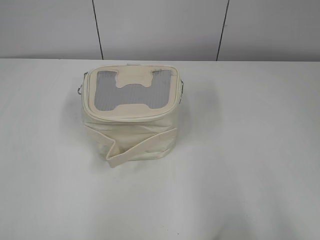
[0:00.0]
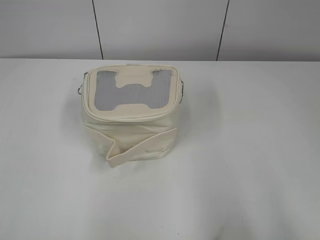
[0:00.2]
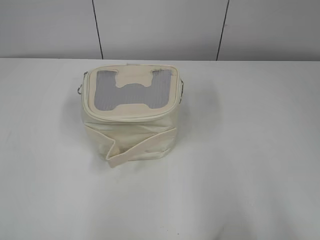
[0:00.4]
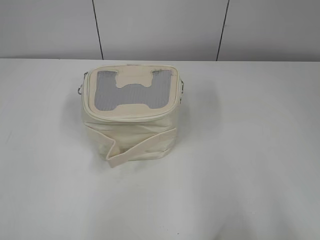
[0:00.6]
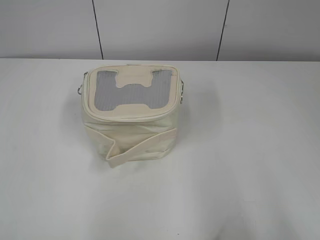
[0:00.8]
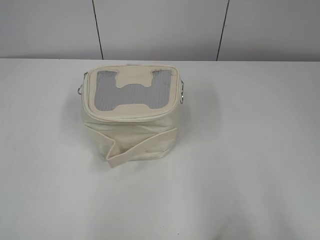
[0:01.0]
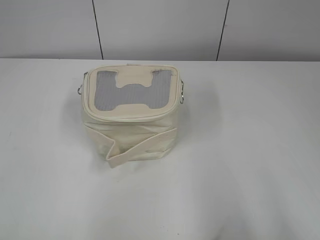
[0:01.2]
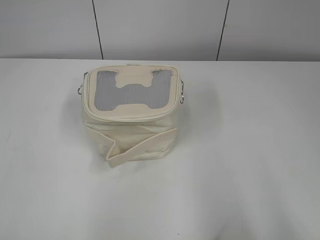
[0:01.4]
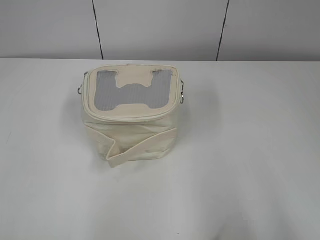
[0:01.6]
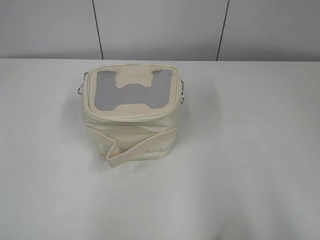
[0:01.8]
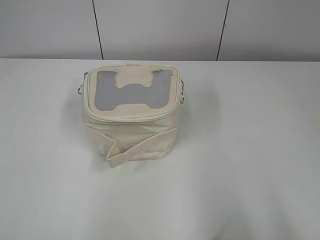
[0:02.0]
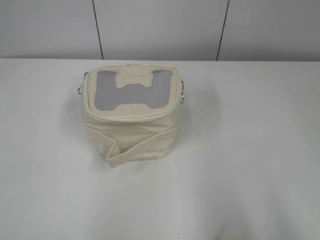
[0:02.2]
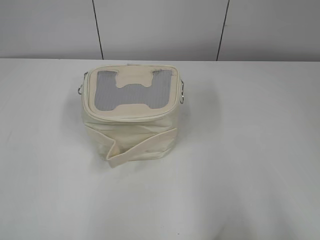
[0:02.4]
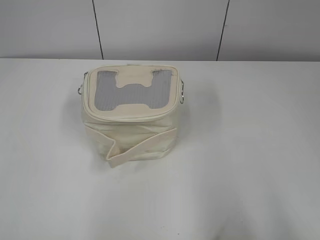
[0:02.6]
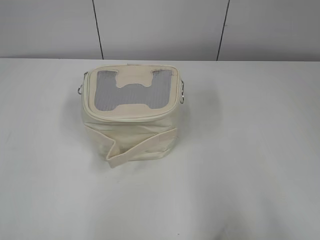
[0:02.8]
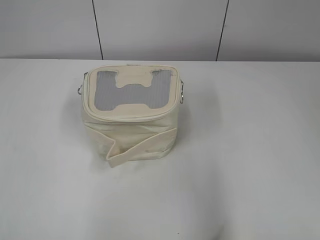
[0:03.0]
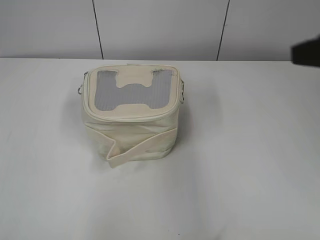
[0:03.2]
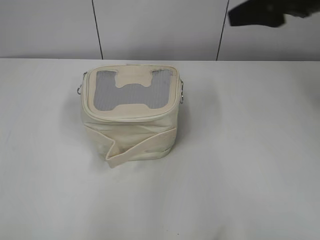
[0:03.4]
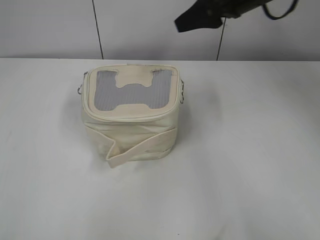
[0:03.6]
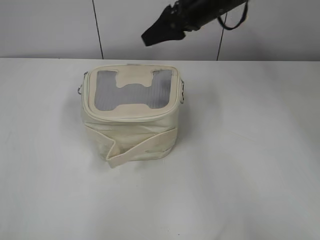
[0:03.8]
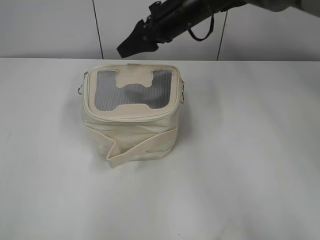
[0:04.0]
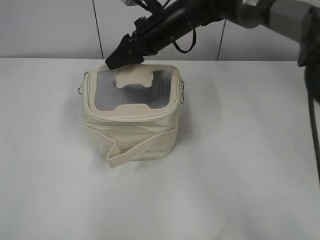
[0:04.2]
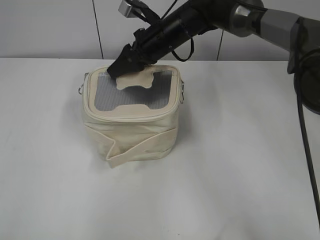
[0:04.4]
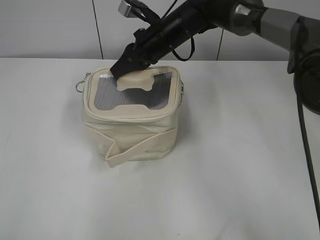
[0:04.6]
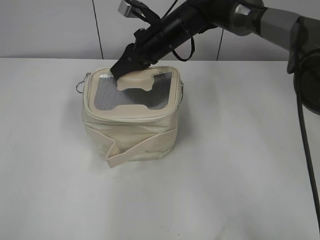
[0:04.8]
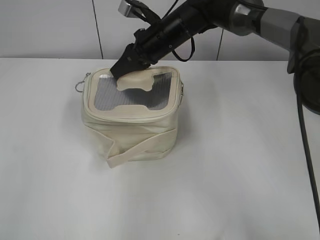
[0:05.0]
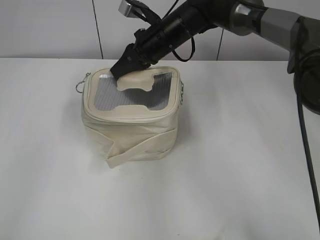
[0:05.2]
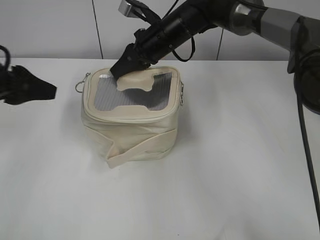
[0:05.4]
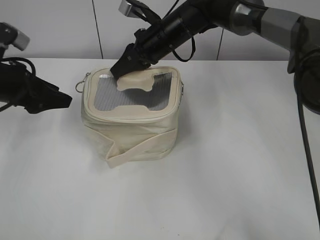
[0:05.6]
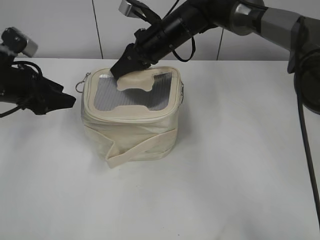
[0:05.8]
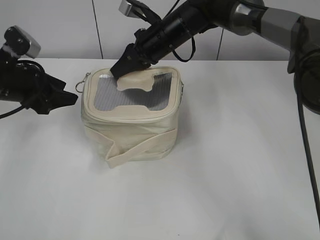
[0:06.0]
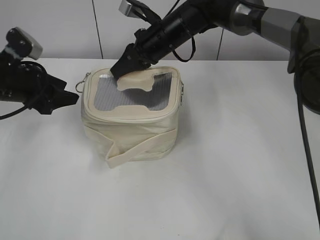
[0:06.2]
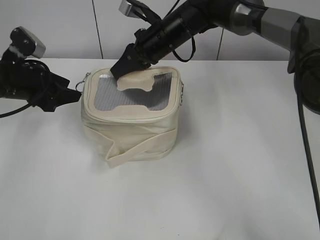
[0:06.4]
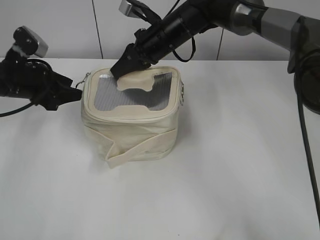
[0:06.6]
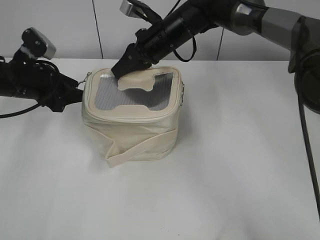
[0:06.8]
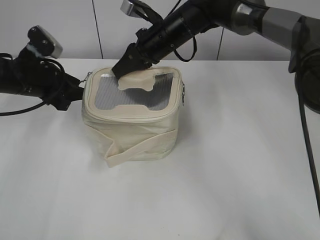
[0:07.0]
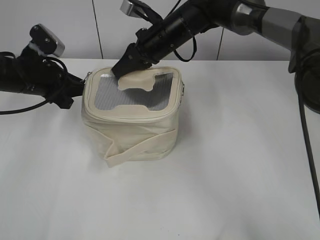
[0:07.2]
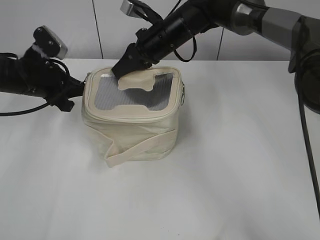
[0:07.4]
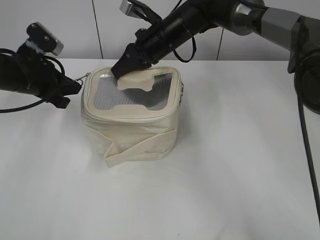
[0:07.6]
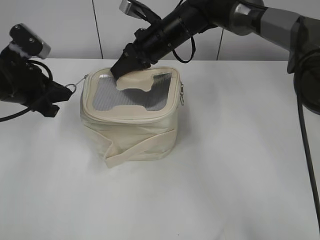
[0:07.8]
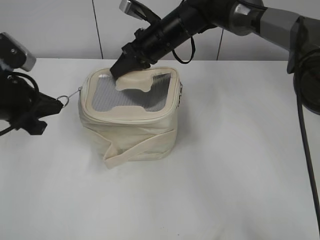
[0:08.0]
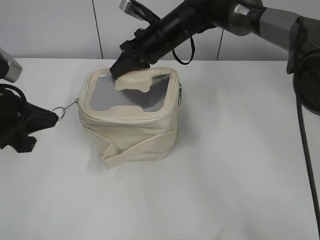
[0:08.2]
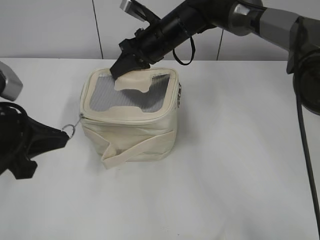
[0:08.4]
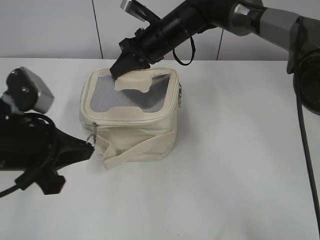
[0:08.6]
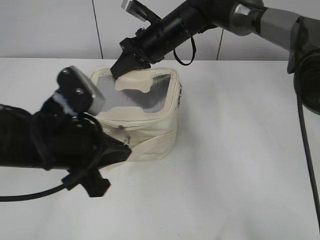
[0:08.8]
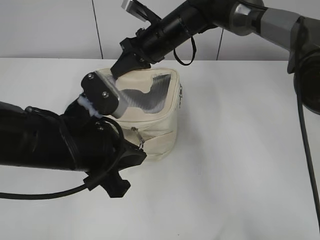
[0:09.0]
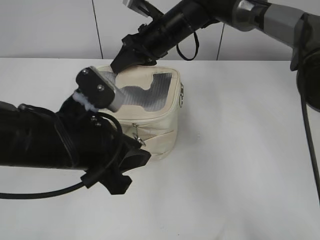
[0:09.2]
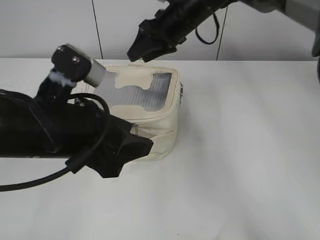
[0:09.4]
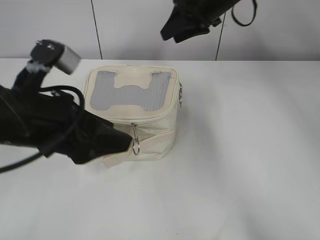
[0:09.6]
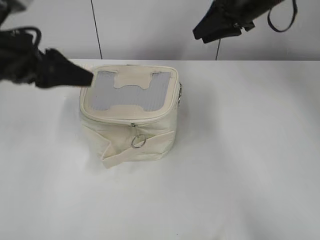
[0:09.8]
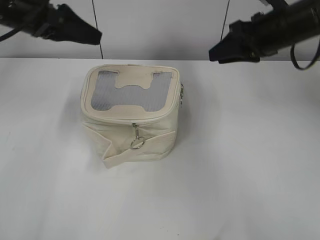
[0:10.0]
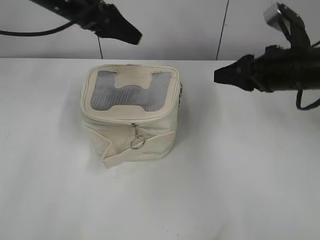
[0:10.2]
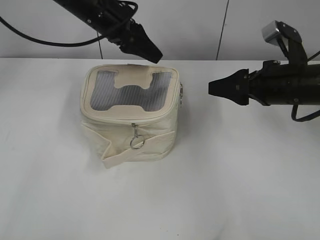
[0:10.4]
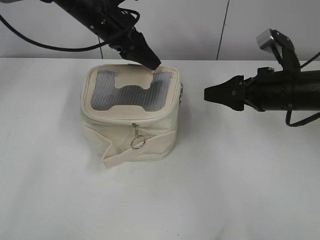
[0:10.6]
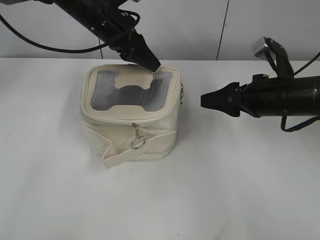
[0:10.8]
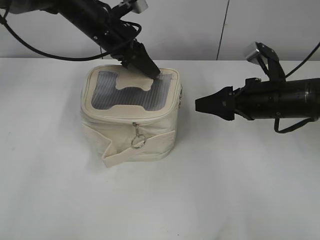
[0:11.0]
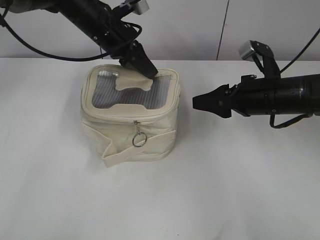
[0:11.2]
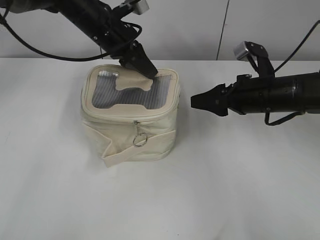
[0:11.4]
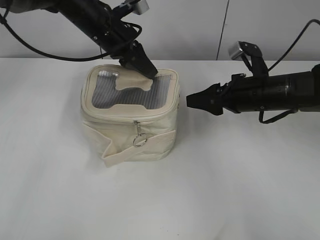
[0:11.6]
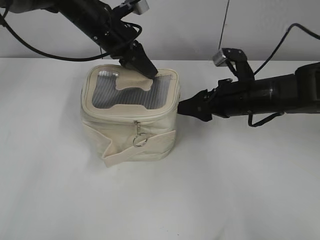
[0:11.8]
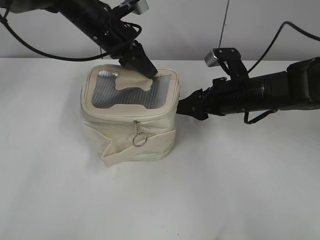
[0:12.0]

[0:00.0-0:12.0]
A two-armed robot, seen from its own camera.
Step, 0:00.0 to 0:09.2: Zip up the bag with your left hand.
0:01.6 to 0:03.0: The right gripper moves some 5 cm.
0:03.0 to 0:04.4: The right gripper heads forward and to the left, covering roughly 50 cm.
0:04.4 to 0:06.0: The right gripper closes. Meanwhile the left gripper goes about 35 cm forward, and opens its fingers.
0:06.0 to 0:07.6: The left gripper closes up.
0:07.6 to 0:09.0: The left gripper moves backward and to the right, roughly 20 cm.
0:09.0 to 0:10.4: The left gripper is displaced forward by roughly 25 cm, and opens. Meanwhile the right gripper shifts roughly 25 cm to the right and backward, and opens up.
0:10.4 to 0:12.0: The right gripper moves to the left and downward, some 10 cm; the left gripper closes its fingers.

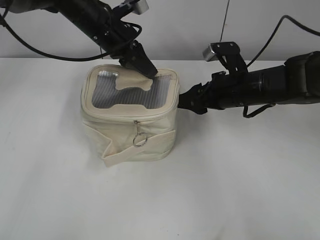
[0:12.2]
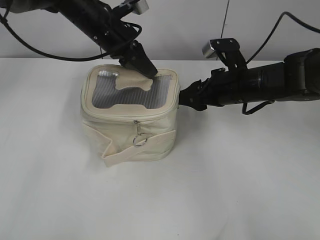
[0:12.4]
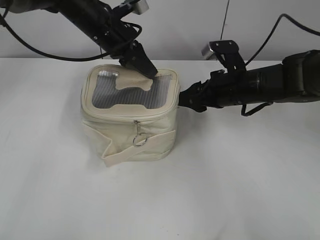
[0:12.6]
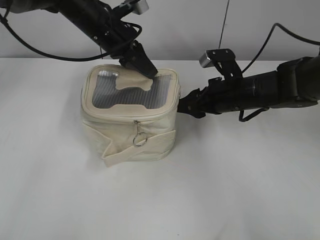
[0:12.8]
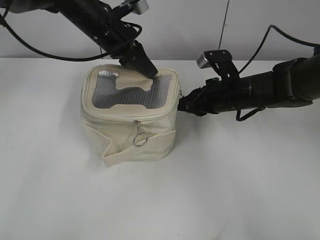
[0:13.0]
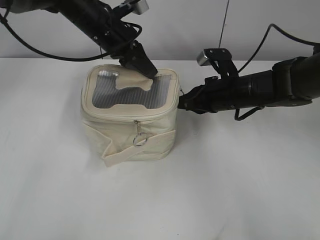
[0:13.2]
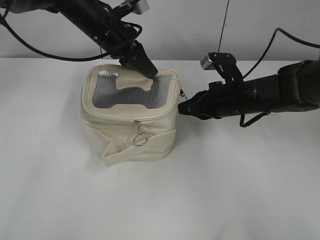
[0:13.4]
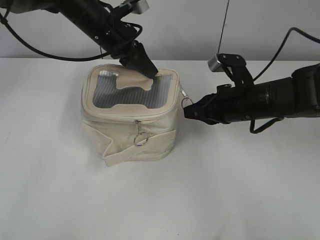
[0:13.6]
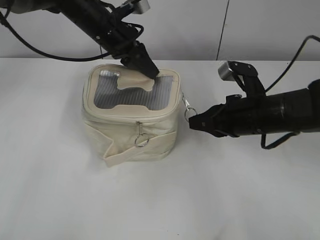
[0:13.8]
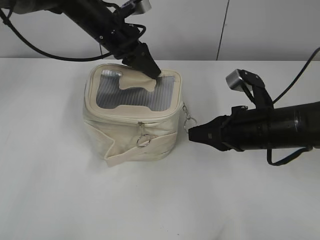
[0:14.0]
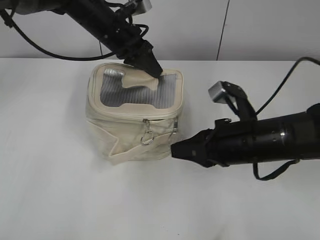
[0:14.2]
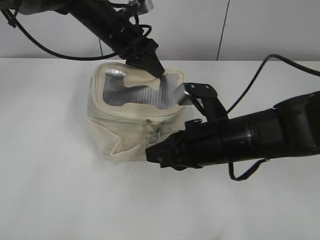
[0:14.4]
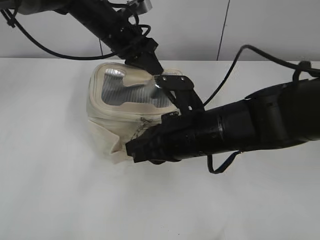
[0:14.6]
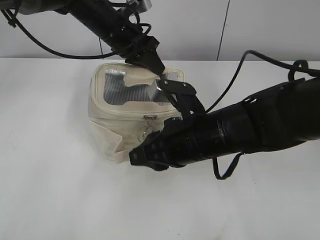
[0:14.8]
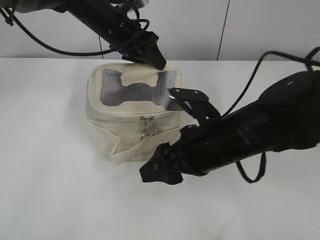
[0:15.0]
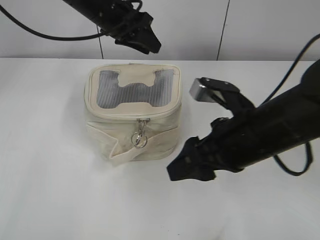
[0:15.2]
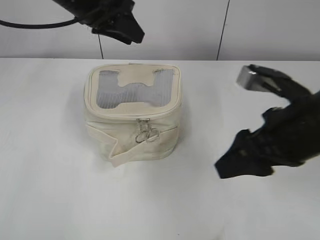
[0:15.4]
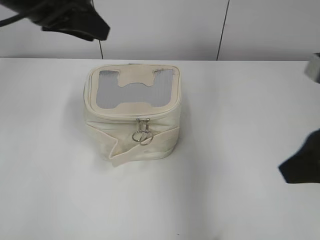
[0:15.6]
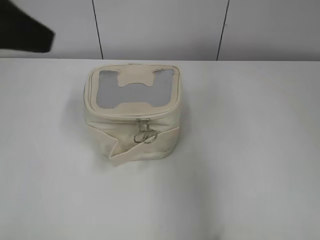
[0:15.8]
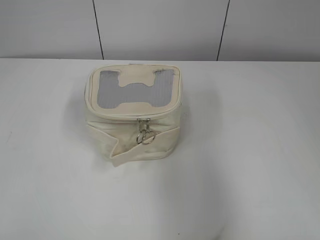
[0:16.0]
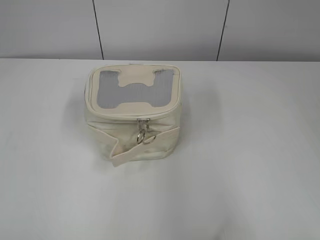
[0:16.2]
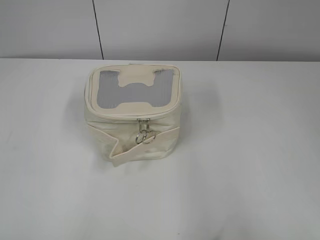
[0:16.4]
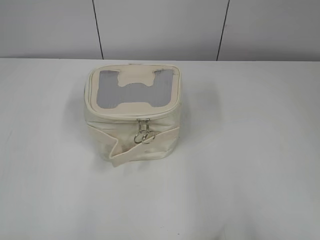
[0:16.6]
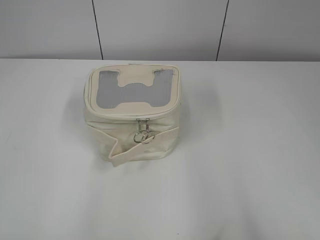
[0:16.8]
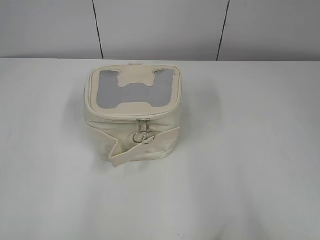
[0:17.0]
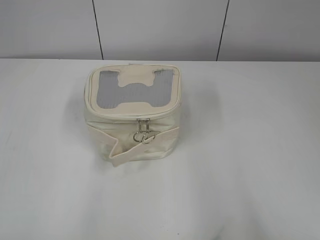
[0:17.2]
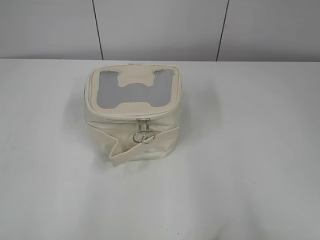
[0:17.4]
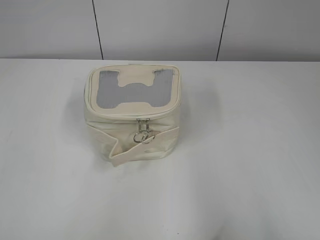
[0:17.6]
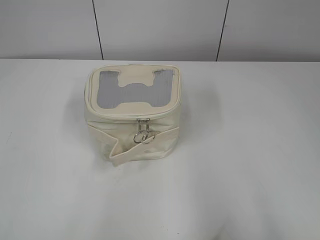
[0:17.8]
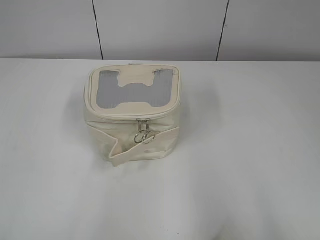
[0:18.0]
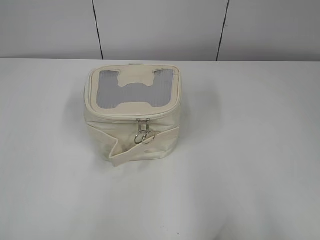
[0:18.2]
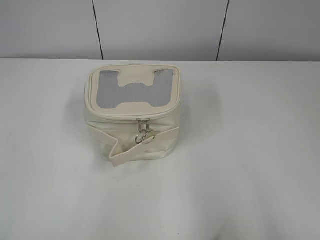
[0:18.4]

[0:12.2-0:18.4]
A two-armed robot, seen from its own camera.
Step, 0:12.2 to 0:14.8: Zip up the bag with your right hand.
0:12.2 to 0:13.8: The right gripper shifts about 5 cm backward, and closes its fingers.
0:13.8 to 0:15.4: The right gripper moves upward and backward, some 10 cm, moves roughly 10 cm to the left and comes back, and opens; the left gripper goes roughly 5 cm upward, and opens up.
0:15.4 to 0:16.8: The right gripper shifts about 25 cm backward and to the right. The left gripper goes approximately 50 cm backward and to the left, and opens up.

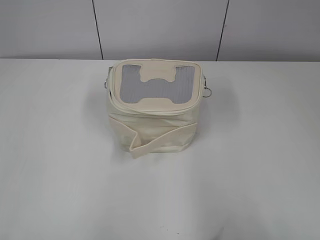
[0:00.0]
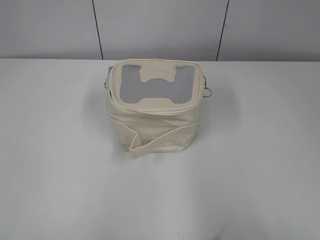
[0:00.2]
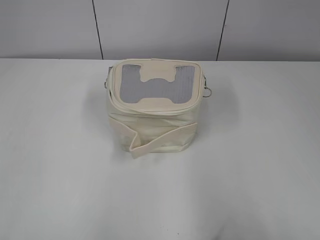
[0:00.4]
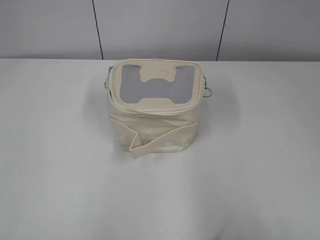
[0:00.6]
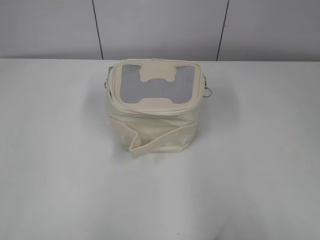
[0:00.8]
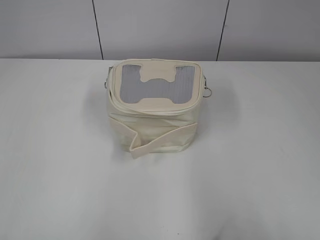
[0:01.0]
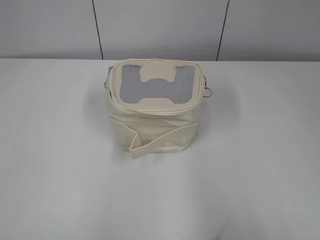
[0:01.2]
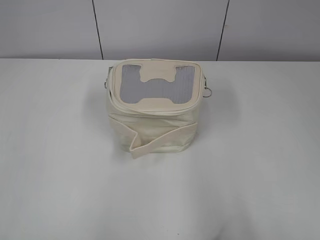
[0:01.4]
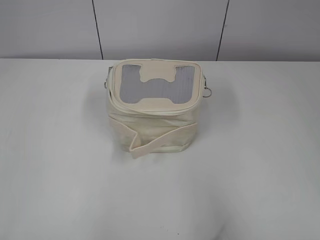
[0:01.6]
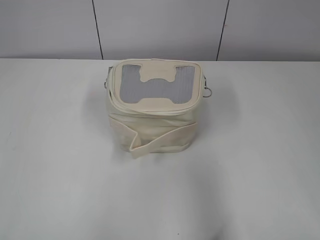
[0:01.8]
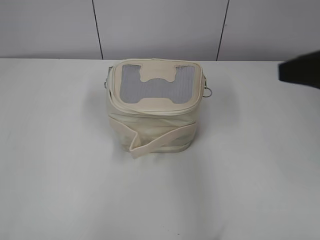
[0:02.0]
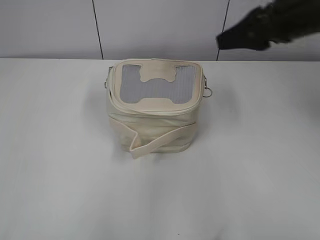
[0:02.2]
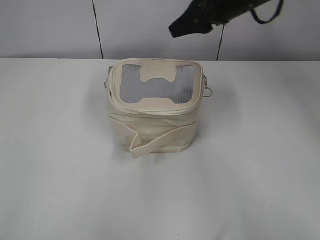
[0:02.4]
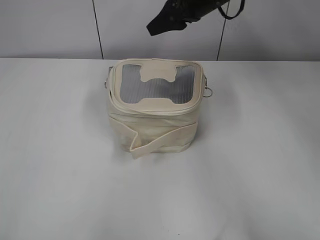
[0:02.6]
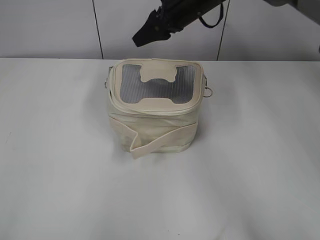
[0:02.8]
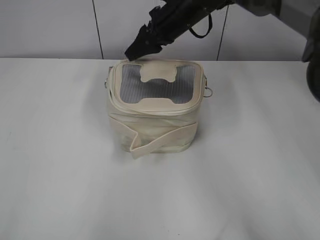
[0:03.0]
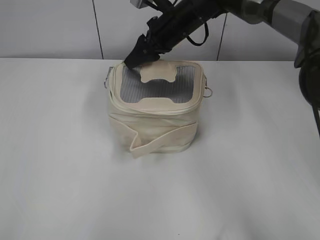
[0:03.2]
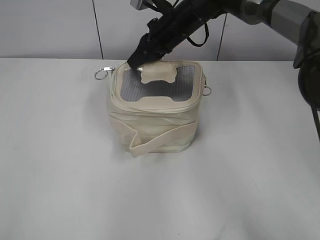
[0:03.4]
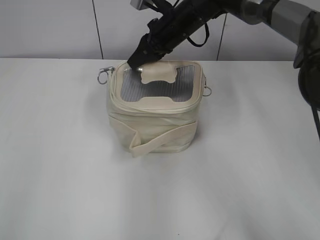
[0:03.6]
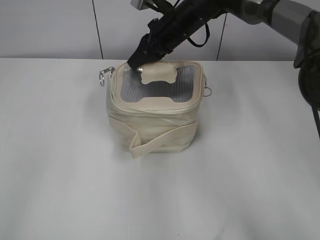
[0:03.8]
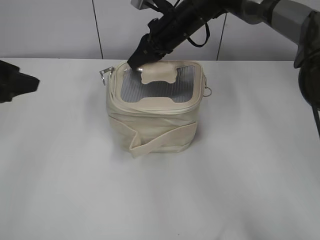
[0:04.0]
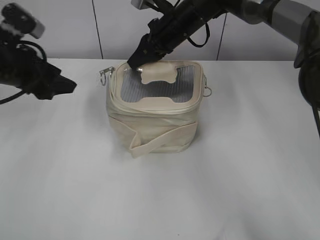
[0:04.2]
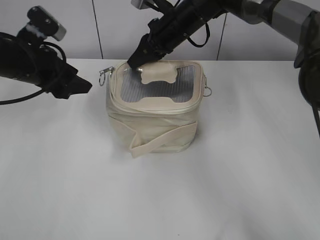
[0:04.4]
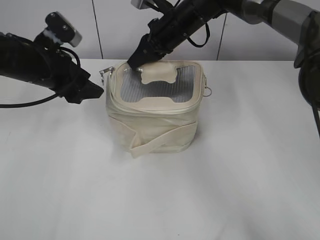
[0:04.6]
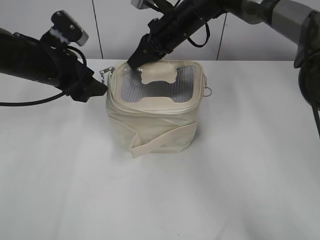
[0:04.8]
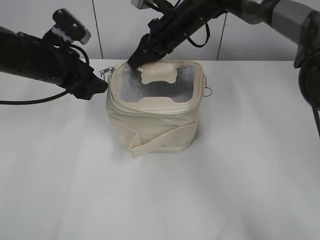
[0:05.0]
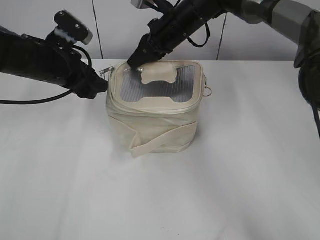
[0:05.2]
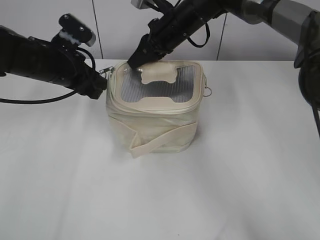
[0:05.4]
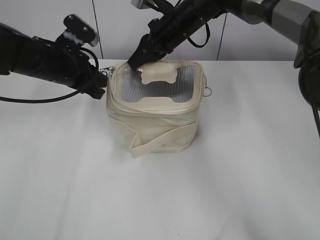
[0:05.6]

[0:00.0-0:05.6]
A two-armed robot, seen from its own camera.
0:01.4 to 0:02.8: The right gripper travels forward and to the left by approximately 50 cm.
0:02.8 to 0:04.2: The left gripper heads forward, covering roughly 30 cm, and opens its fingers; the right gripper travels downward by approximately 5 cm, and closes.
0:04.2 to 0:05.6: The left gripper goes approximately 10 cm to the right and forward, and closes its fingers.
